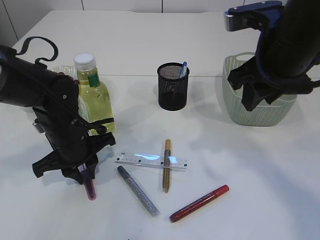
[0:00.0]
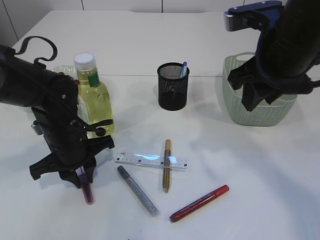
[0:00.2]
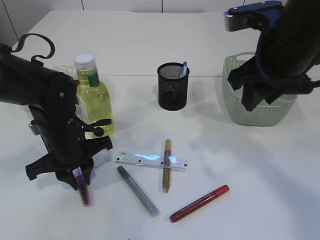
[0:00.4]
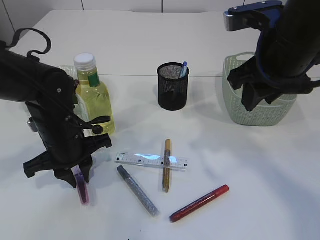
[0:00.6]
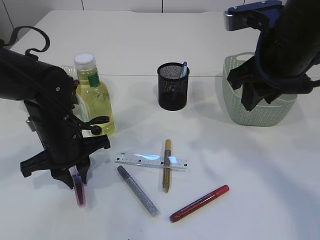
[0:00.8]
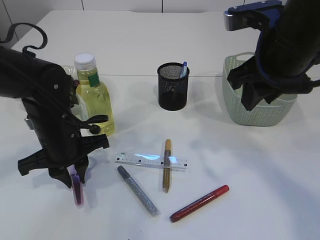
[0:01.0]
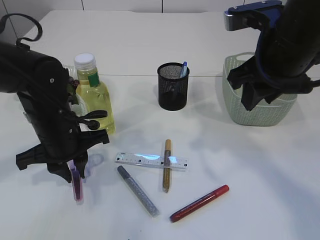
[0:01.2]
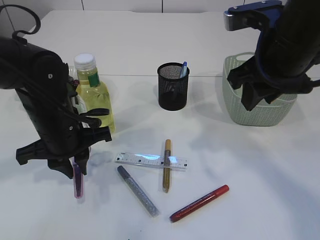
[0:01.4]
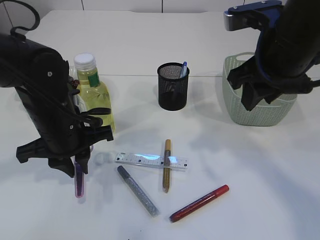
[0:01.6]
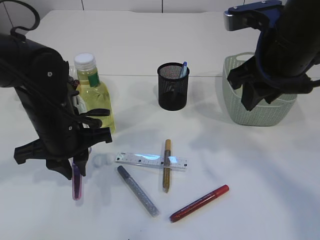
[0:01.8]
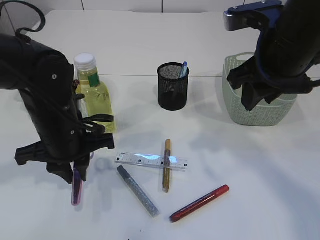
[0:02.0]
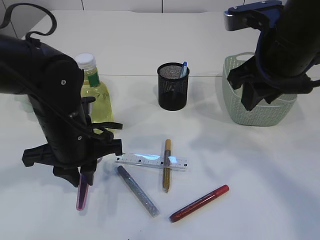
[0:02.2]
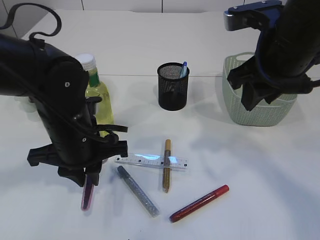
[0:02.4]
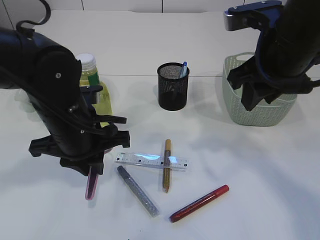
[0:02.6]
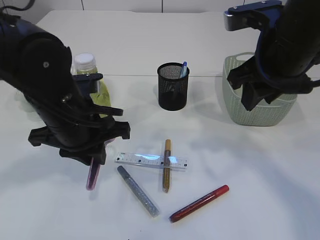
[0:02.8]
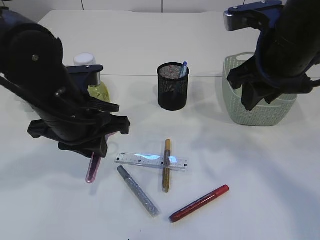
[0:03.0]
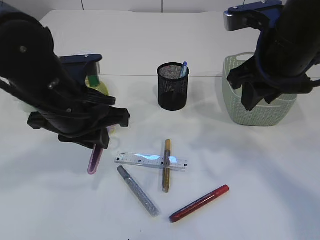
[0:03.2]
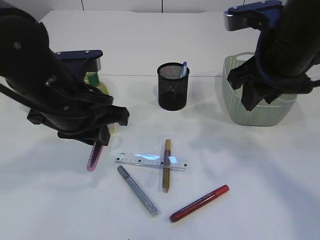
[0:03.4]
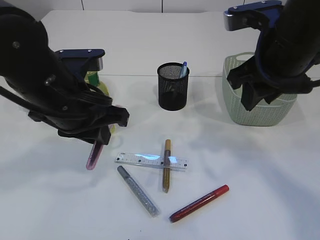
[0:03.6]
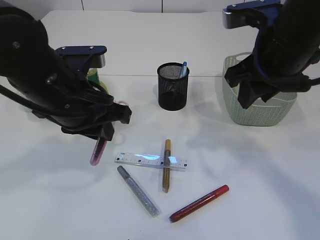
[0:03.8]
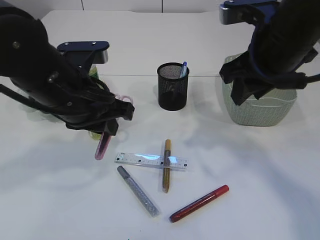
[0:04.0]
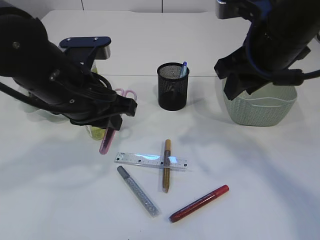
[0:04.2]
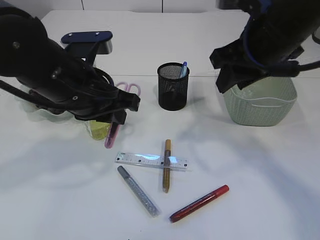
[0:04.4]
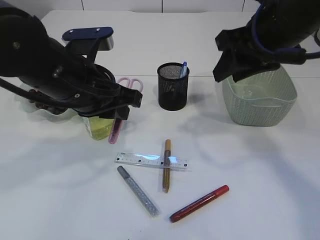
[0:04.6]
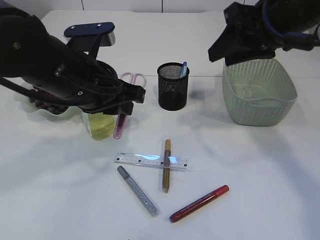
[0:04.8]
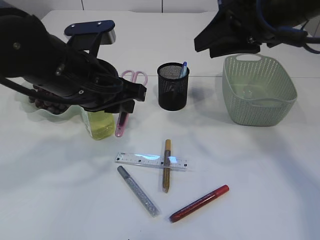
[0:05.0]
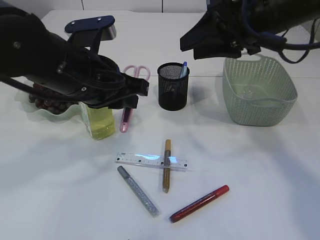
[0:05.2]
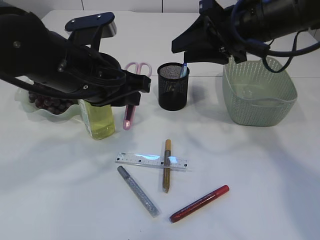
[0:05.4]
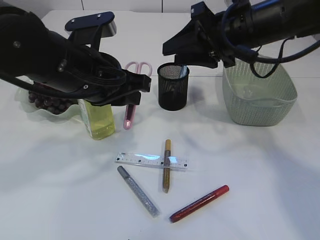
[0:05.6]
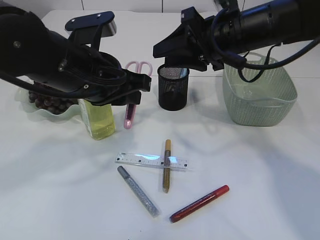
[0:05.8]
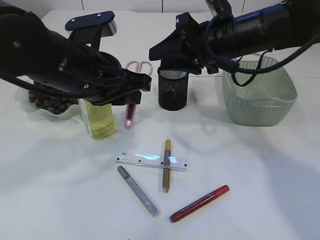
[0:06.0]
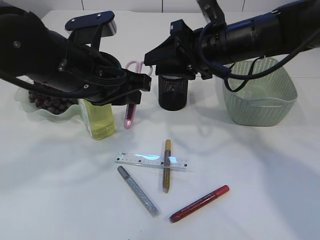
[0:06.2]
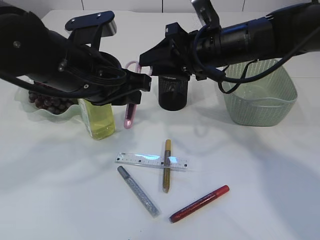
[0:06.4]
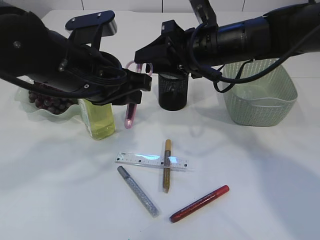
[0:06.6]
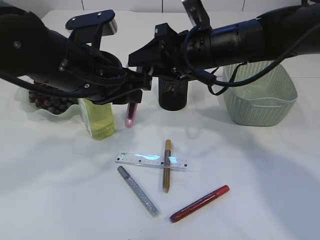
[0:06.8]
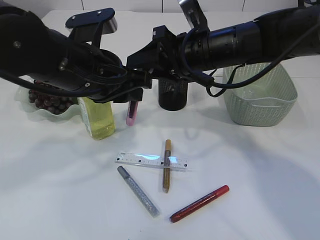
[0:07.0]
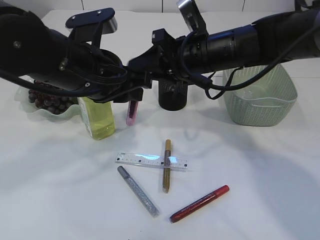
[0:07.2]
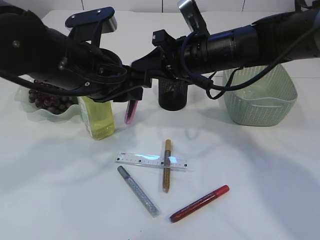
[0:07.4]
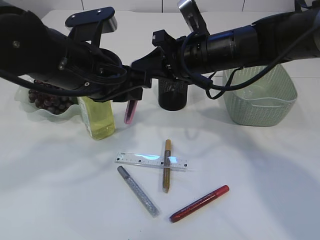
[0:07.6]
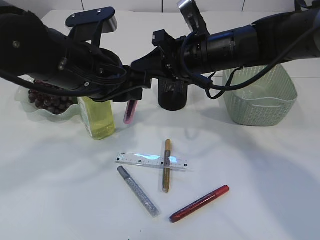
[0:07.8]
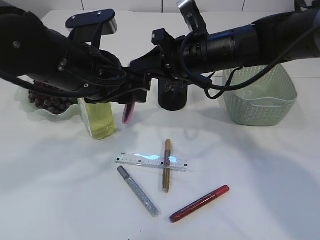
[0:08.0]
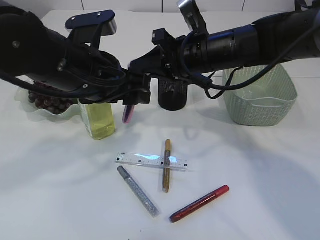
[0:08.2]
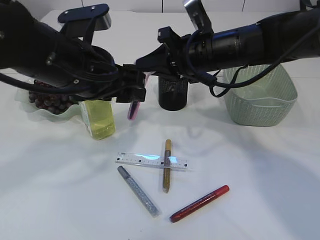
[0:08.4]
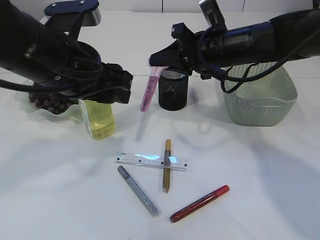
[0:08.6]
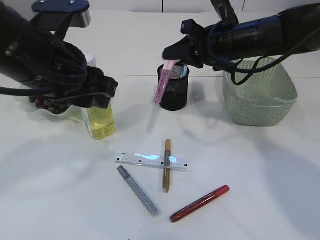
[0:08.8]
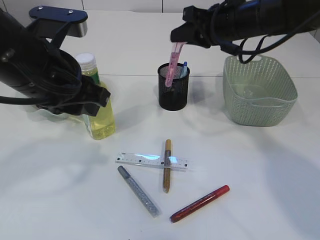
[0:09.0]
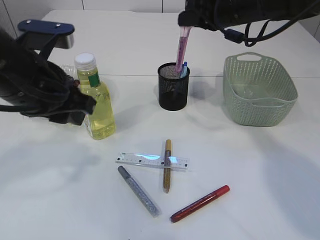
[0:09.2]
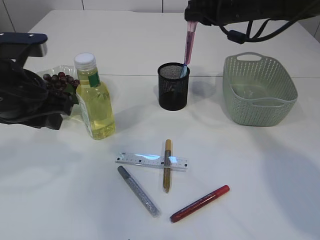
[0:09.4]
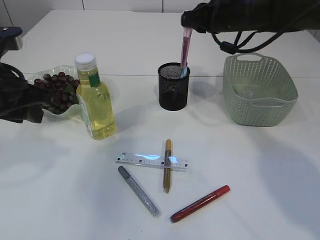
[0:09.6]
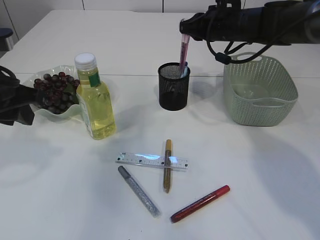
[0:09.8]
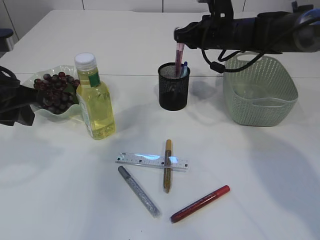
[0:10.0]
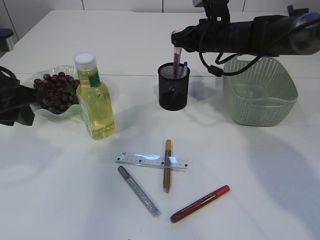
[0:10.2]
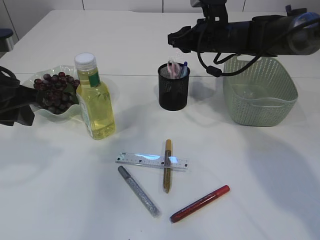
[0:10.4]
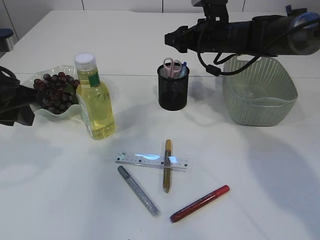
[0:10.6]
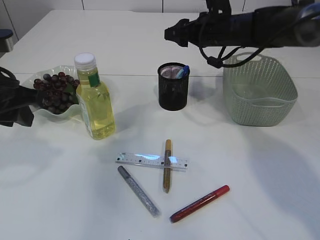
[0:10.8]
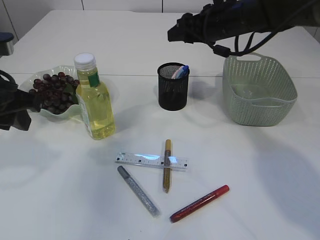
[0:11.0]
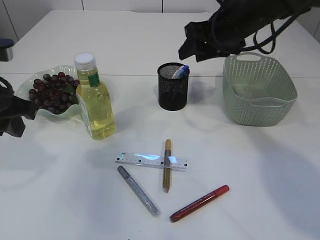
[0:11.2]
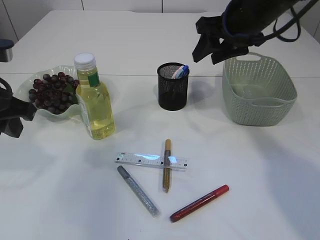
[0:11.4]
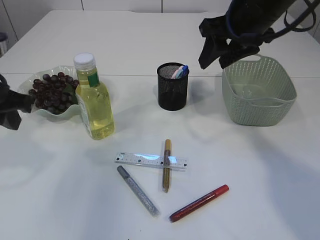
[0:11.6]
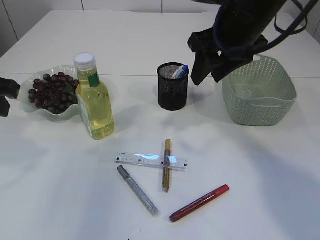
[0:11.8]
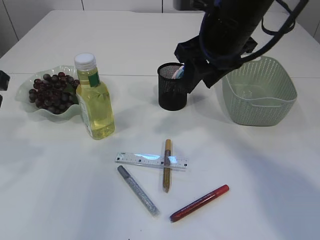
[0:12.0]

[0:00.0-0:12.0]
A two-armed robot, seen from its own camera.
Step, 0:00.0 to 0:02.2: pick up the pink scissors.
Step, 0:02.4 to 0:08.6: Hand over the pink scissors.
Step, 0:08.8 to 0:11.2: Place the pink scissors into the pen holder.
0:00.0 to 0:01.6: The left gripper is displaced upward by about 5 cm.
0:01.6 to 0:03.0: The left gripper shifts by approximately 5 cm.
0:04.4 to 0:06.0: The right gripper moves forward, about 5 cm.
0:06.0 to 0:07.6: The right gripper closes.
0:07.6 to 0:09.0: The right gripper is displaced to the right by approximately 5 cm. Meanwhile the left gripper shifts by some 5 cm, and opens, then closes once more.
0:09.0 to 0:10.4: The left gripper travels to the left by approximately 10 cm. The right gripper is displaced forward and downward by about 10 cm.
0:10.4 to 0:12.0: The right gripper goes approximately 15 cm backward and upward; the left gripper changes place by approximately 5 cm.

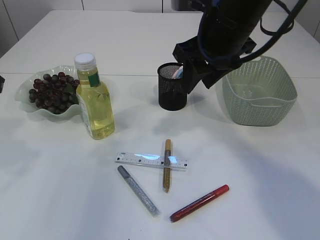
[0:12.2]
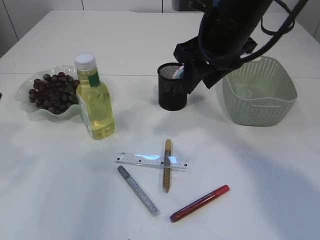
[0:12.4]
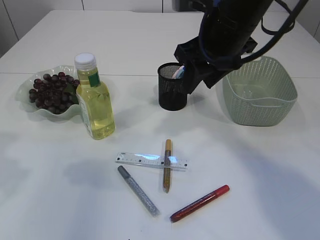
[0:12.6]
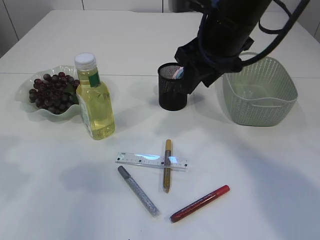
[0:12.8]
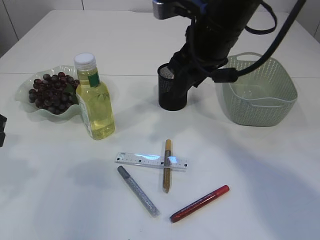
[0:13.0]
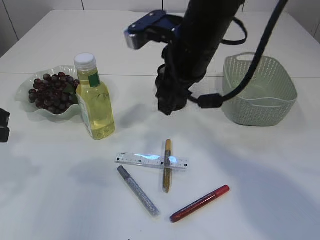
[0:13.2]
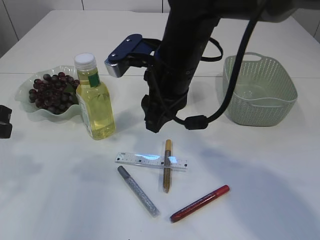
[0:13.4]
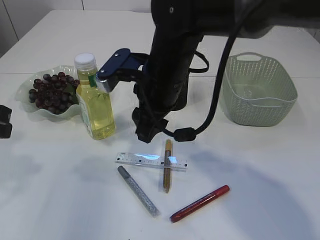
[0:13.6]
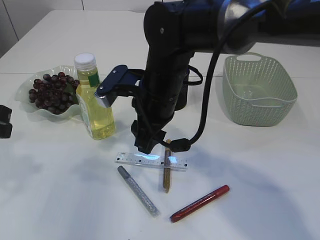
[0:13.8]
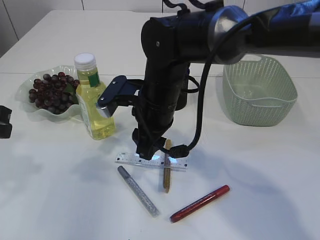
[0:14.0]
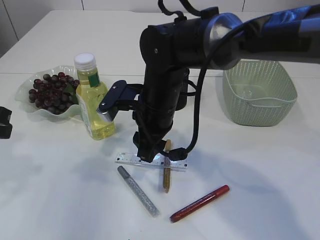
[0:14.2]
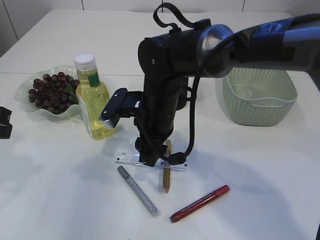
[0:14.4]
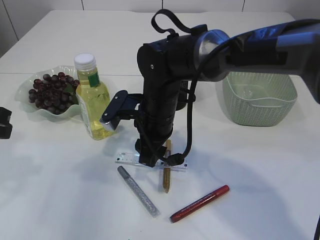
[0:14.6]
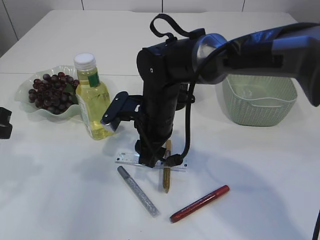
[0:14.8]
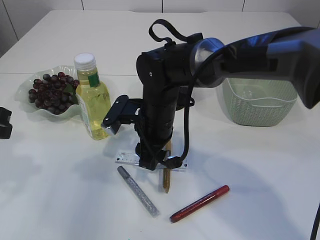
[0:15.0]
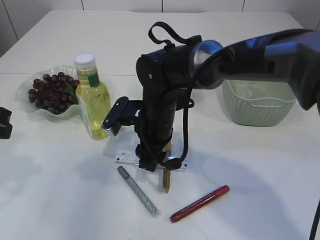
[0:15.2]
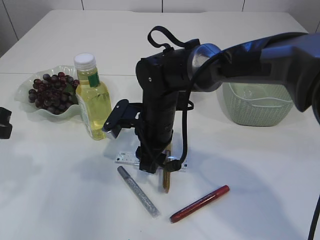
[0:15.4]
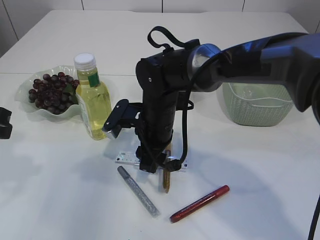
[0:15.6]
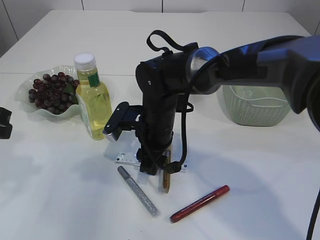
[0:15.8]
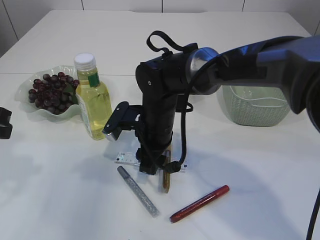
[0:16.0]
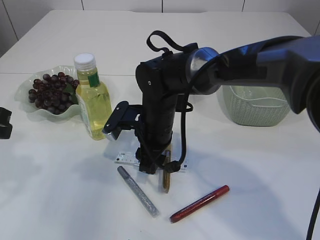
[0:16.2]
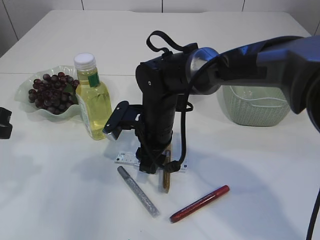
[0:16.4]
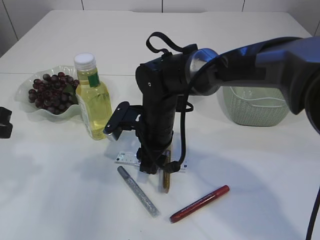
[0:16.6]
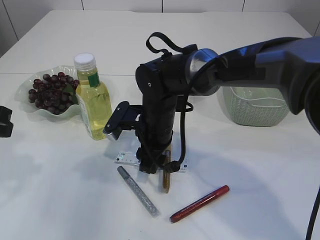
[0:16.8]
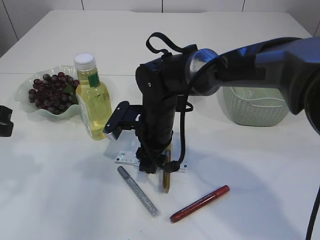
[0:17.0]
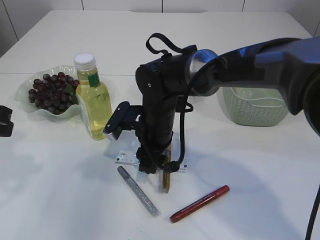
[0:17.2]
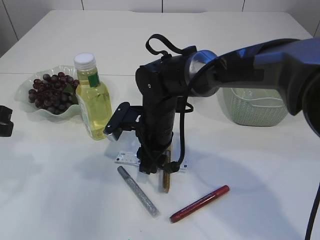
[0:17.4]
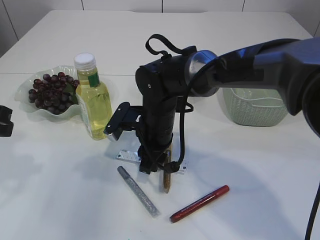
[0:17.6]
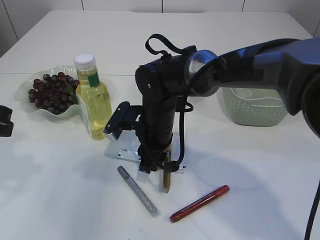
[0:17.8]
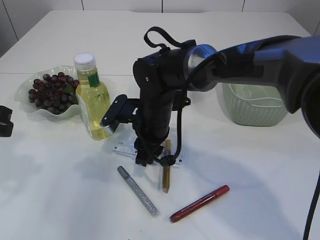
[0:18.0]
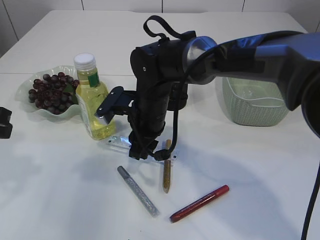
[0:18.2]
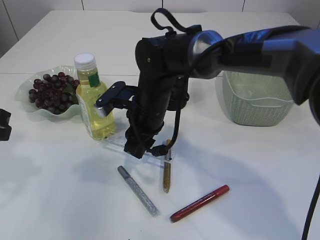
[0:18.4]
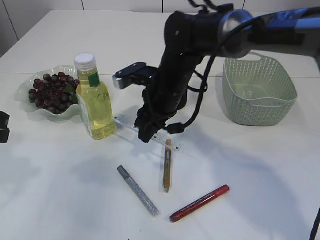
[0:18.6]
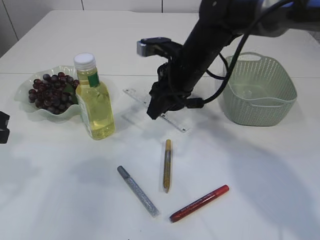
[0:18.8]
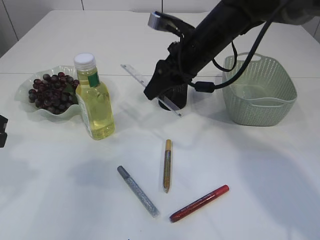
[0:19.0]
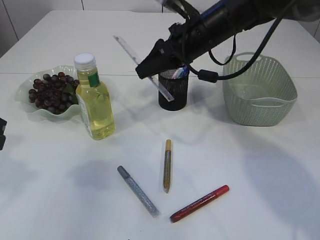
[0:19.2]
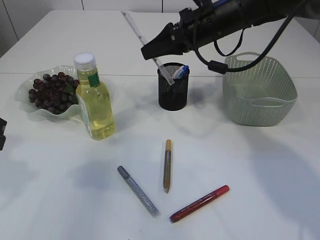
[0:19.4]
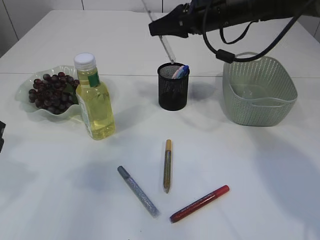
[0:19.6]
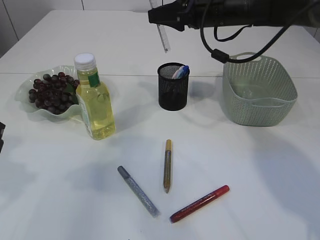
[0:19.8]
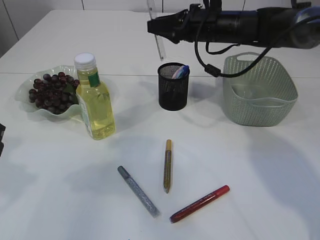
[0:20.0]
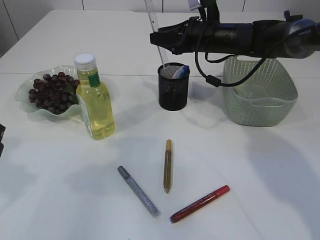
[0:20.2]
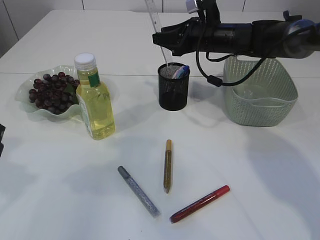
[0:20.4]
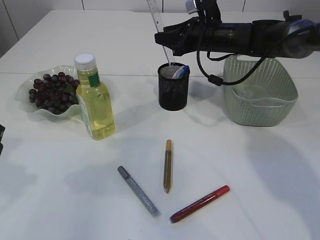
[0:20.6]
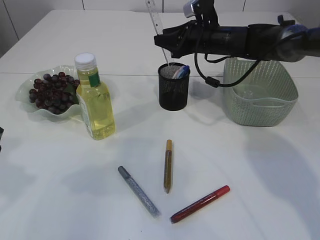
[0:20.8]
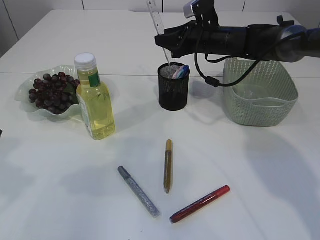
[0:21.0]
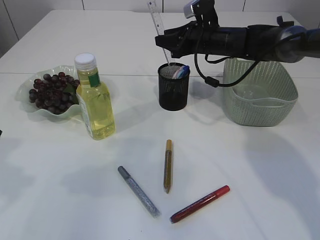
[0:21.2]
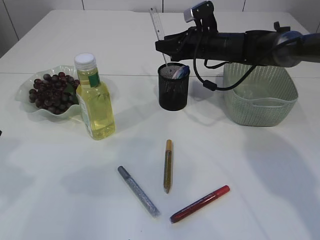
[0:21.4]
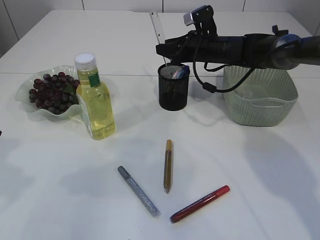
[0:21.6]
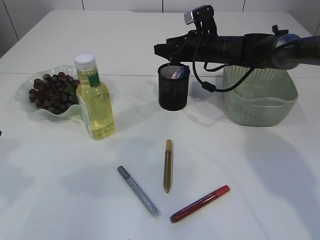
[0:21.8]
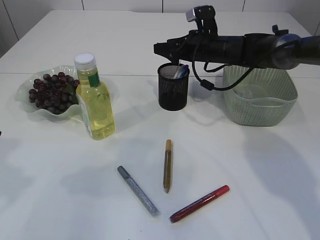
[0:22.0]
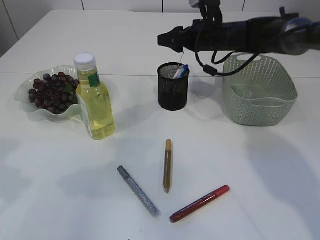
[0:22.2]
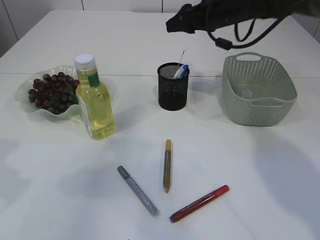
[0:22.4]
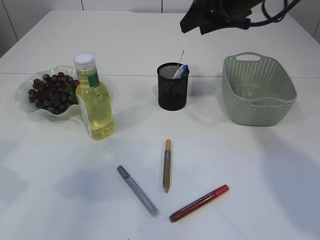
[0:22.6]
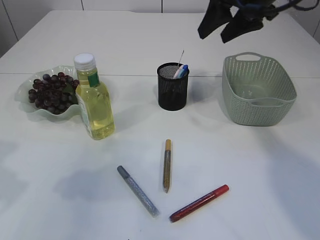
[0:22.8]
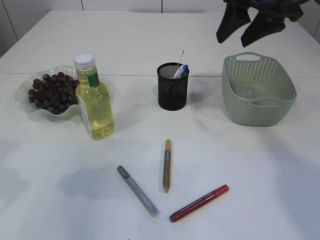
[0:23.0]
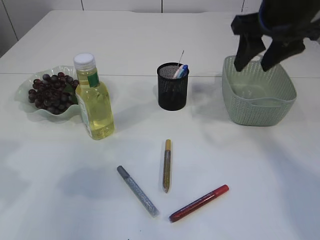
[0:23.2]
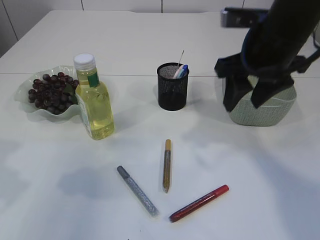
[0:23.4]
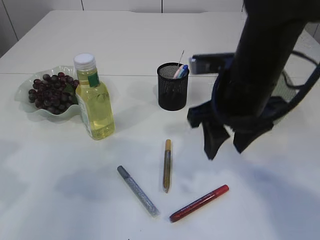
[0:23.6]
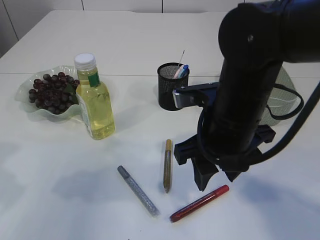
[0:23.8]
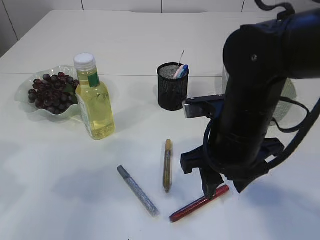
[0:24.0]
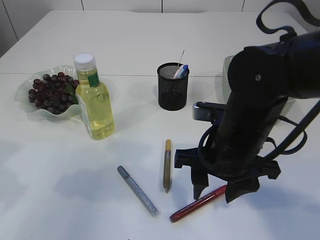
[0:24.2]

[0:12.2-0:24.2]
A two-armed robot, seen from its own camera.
Step, 0:12.2 to 0:18.4: pick up the ruler.
Step, 0:18.6 to 0:22.2: Place the ruler into the pen holder.
0:12.2 to 0:13.8: The right gripper shifts roughly 15 cm to the left and downward.
0:13.8 to 0:15.2: The right gripper shifts some 5 cm downward.
0:15.2 to 0:18.2: The grippers stay close to where they were, moving slightly.
0:18.2 to 0:19.8: The right gripper heads to the right, upward and forward, covering some 20 cm.
0:19.8 to 0:21.2: The right gripper moves downward and forward, roughly 10 cm.
0:21.2 to 0:22.6: The right gripper goes approximately 15 cm upward and backward.
0:22.6 to 0:24.2: The right gripper goes some 25 cm backward and downward.
